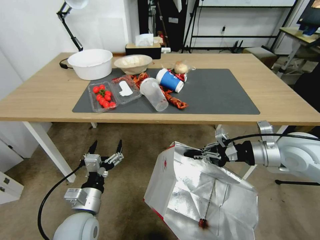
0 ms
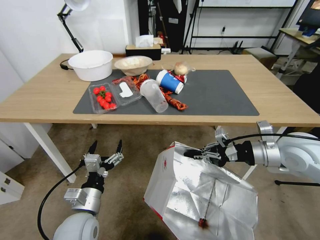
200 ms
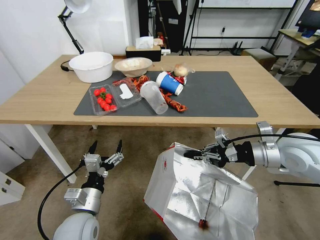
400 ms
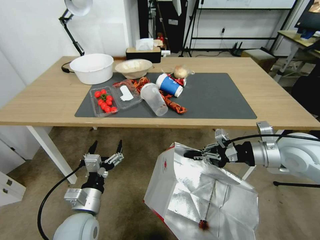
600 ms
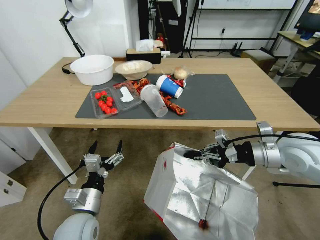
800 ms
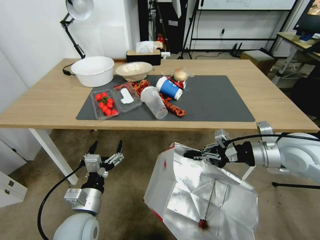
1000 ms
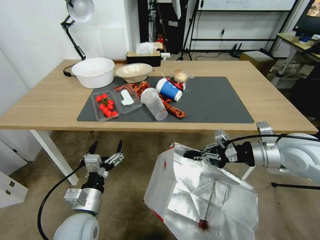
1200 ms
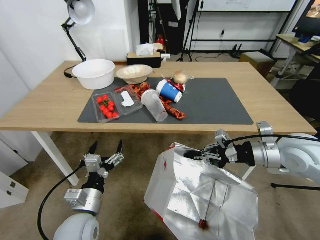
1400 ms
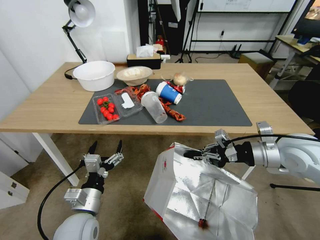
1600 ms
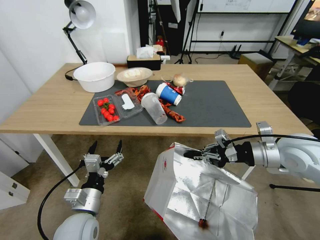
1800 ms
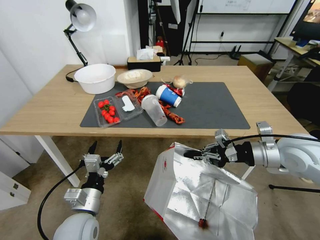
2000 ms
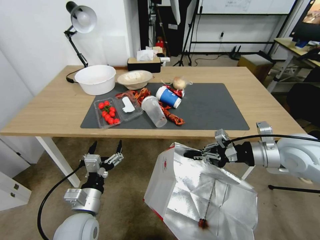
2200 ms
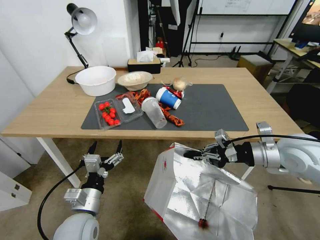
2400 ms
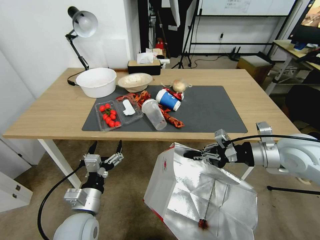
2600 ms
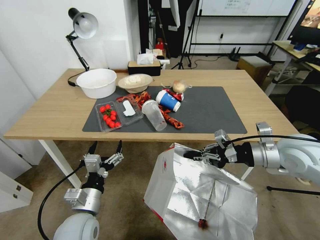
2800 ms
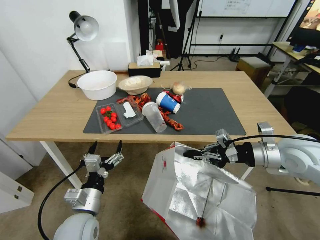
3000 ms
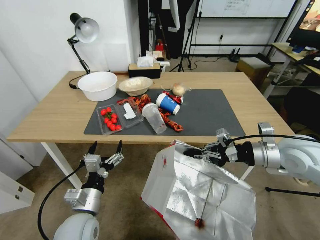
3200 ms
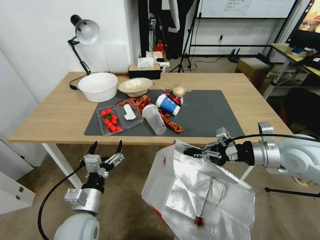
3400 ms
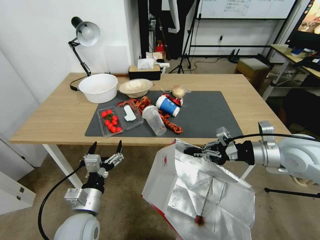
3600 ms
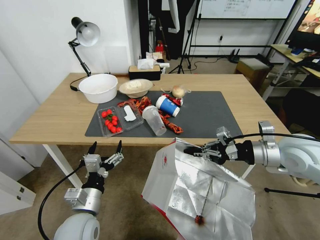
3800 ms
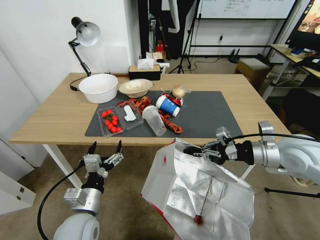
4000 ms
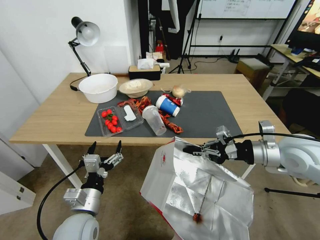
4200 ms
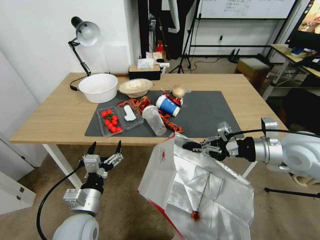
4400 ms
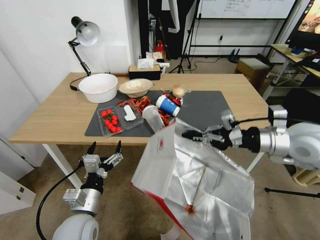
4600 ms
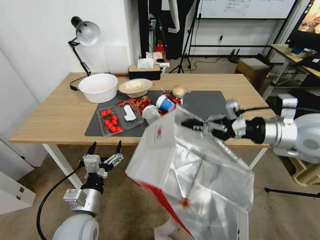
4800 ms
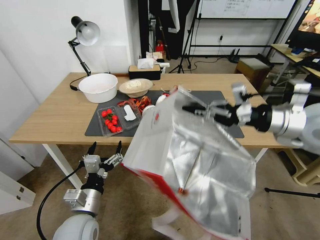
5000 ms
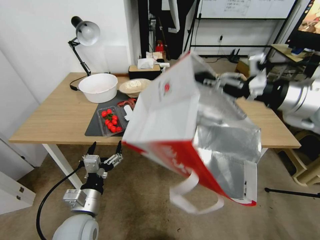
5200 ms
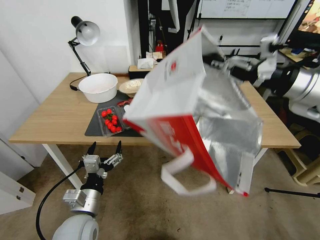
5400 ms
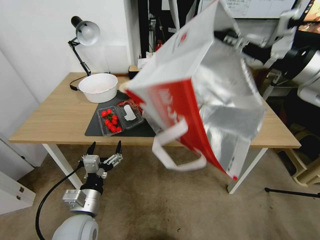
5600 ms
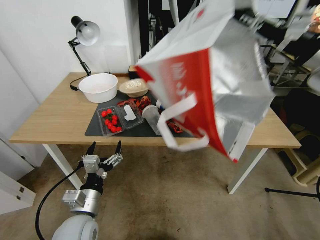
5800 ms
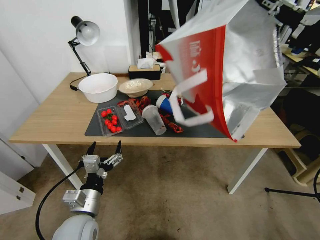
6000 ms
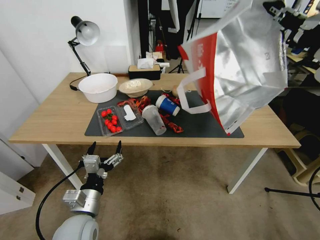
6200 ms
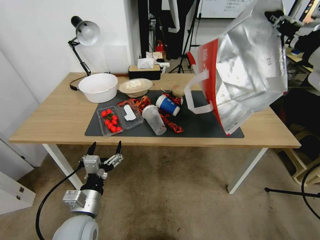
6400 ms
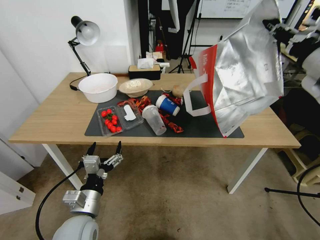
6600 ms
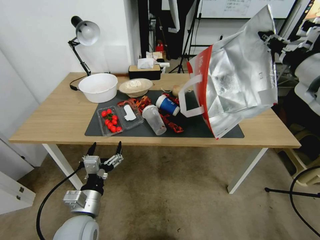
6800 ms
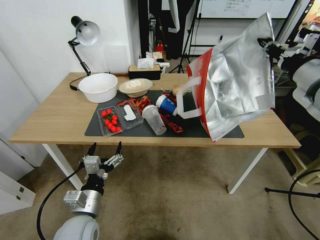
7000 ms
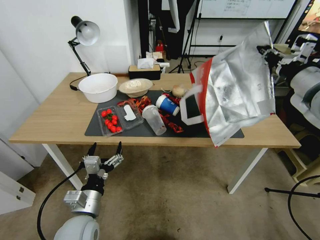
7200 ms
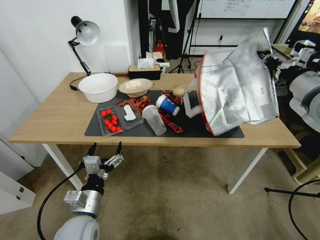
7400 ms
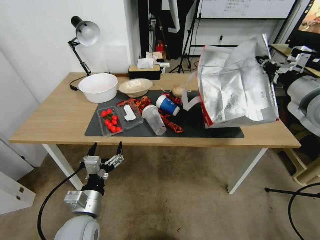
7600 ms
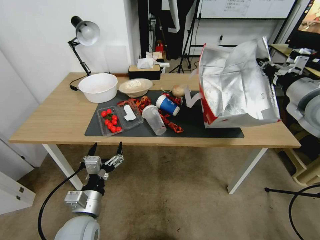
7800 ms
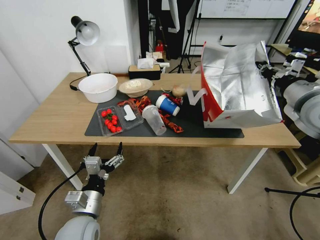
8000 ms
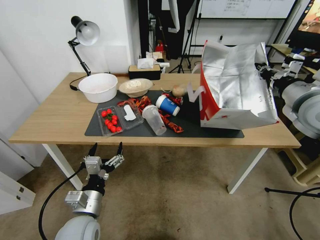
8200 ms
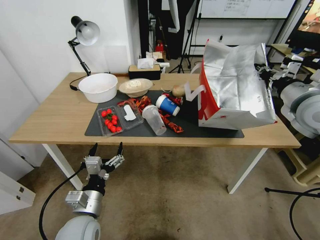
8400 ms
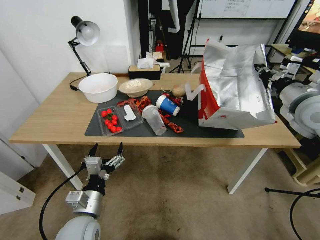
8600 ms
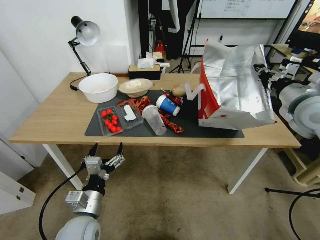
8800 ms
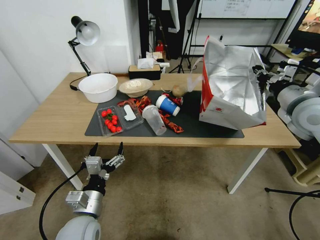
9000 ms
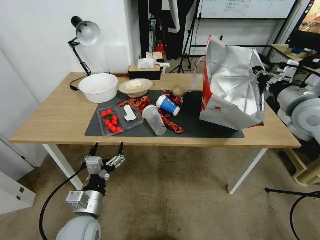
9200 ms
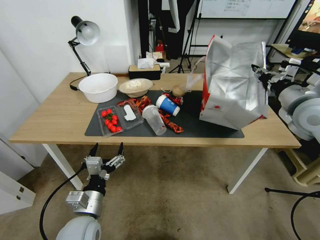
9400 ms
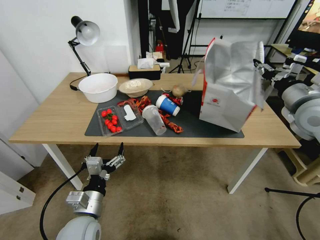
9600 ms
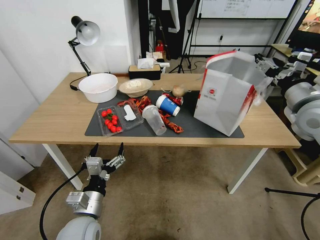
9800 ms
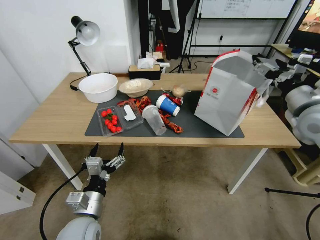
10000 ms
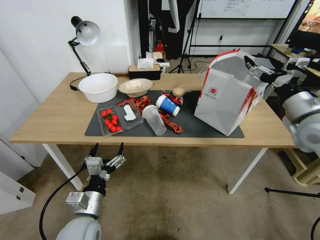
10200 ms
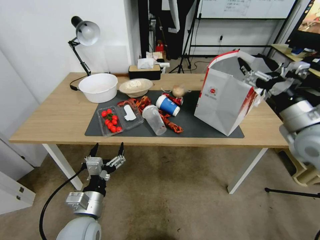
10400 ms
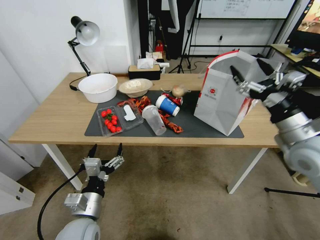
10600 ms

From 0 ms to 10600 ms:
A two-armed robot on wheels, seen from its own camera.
Task of the whole recording: Pick up the food delivery bag from the floor and place it on the table.
From 4600 ms to 6000 ms: The right gripper heads upward, covering some 20 cm.
From 6000 ms to 7600 ms: The right gripper goes about 10 cm downward.
From 7600 ms to 9000 ms: The grippers move only a little.
From 9000 ms to 10600 ms: The right gripper goes some 10 cm backward and downward, and opens up.

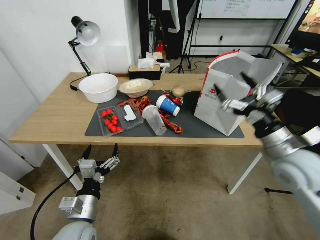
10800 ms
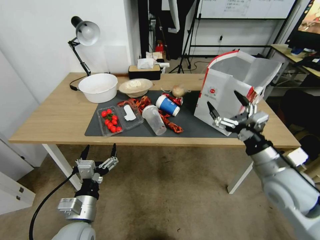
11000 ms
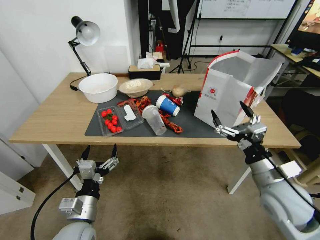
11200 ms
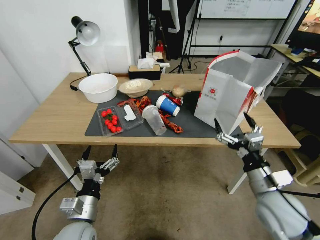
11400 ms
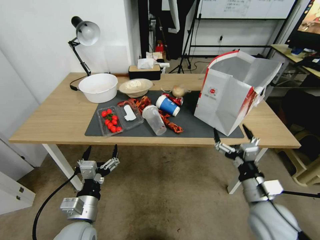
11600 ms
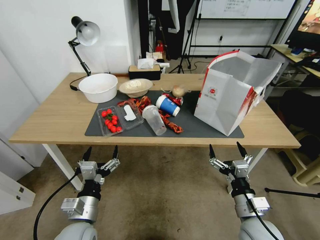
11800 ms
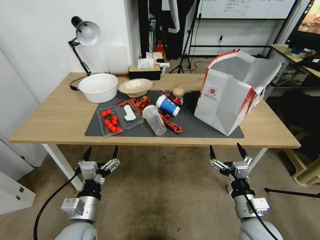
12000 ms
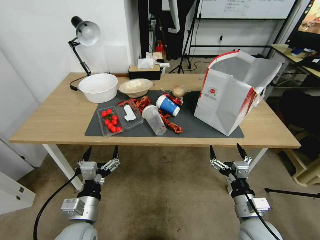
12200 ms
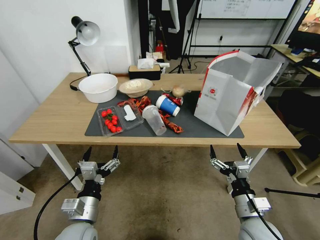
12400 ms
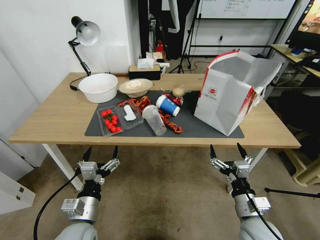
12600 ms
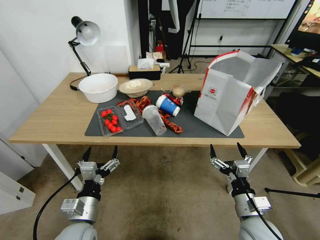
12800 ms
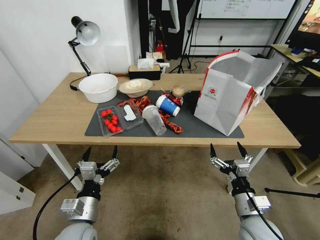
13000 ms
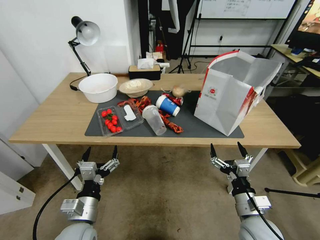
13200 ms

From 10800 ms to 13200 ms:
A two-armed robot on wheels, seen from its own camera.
Task of the whole recording: Pick up the food delivery bag from the floor and place it on the table.
From 10800 ms to 12000 ms: The right gripper moves downward and backward, some 20 cm.
From 12000 ms to 13200 ms: The two grippers keep their place.
